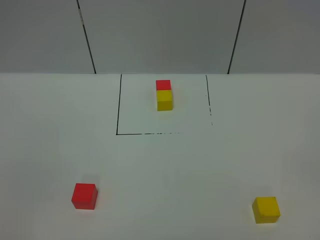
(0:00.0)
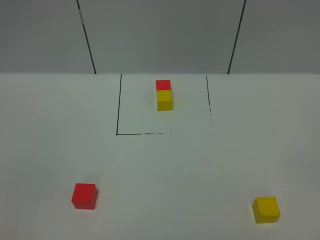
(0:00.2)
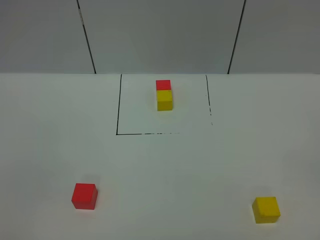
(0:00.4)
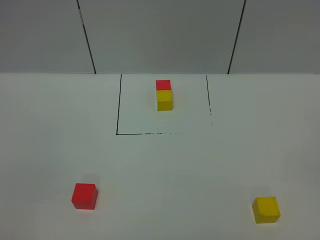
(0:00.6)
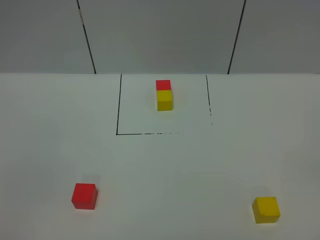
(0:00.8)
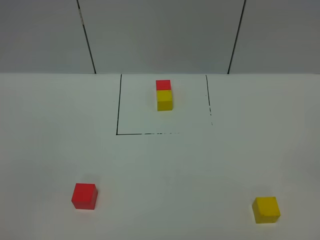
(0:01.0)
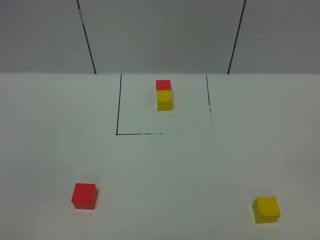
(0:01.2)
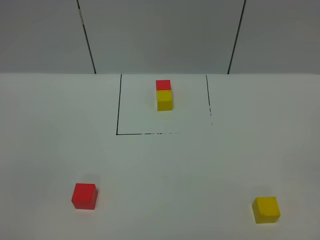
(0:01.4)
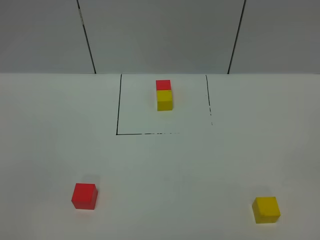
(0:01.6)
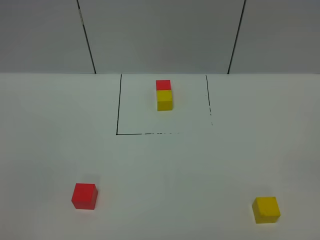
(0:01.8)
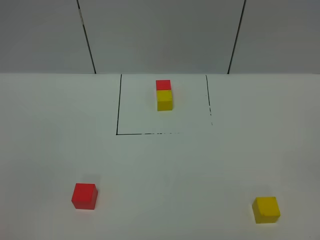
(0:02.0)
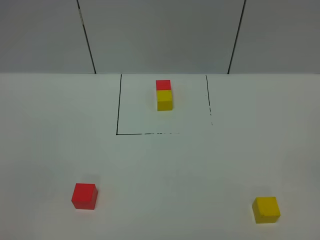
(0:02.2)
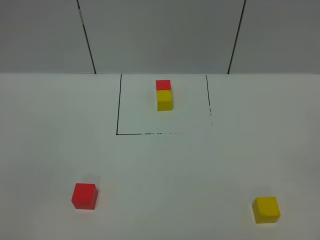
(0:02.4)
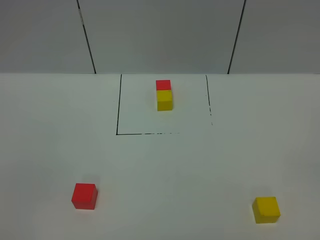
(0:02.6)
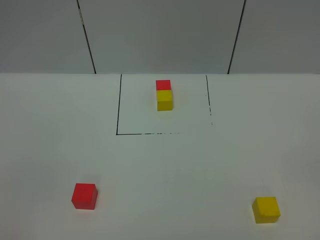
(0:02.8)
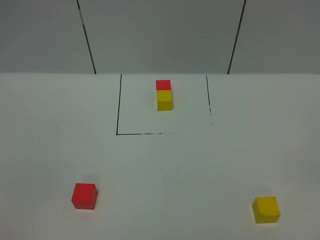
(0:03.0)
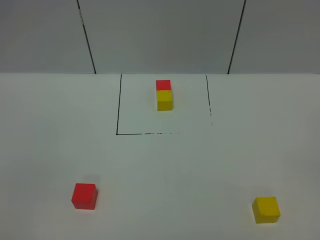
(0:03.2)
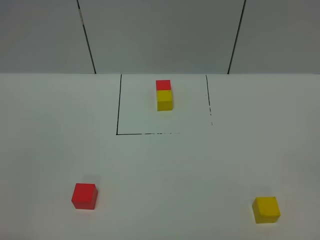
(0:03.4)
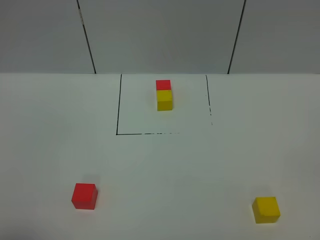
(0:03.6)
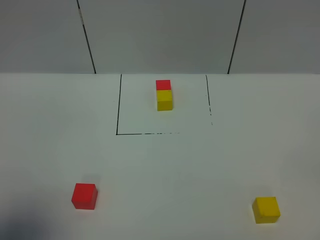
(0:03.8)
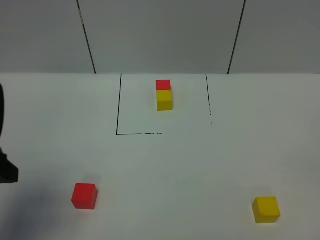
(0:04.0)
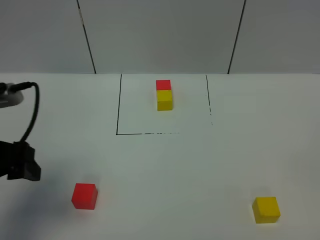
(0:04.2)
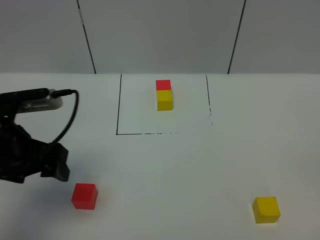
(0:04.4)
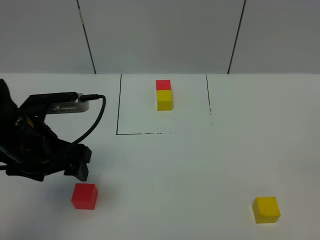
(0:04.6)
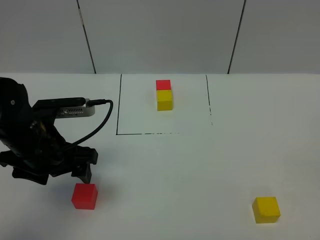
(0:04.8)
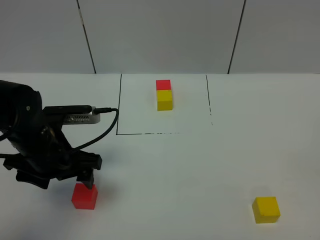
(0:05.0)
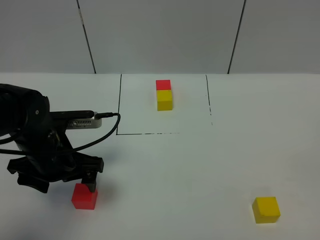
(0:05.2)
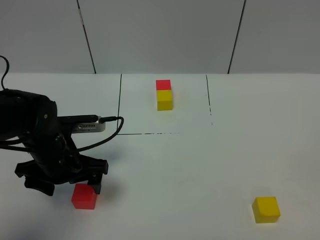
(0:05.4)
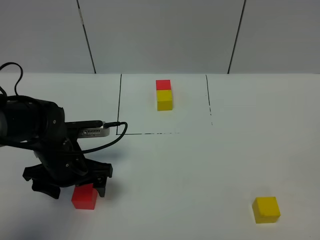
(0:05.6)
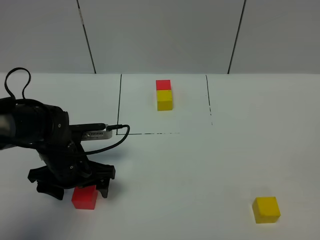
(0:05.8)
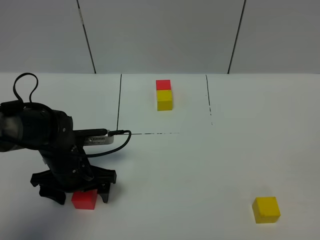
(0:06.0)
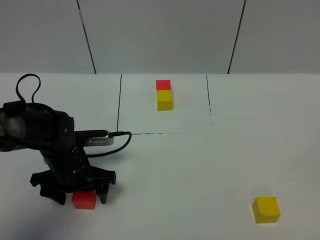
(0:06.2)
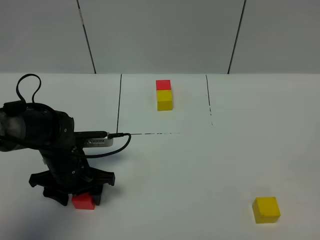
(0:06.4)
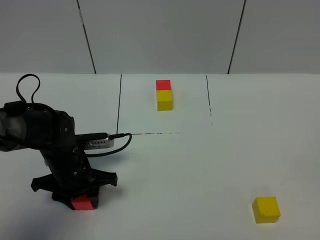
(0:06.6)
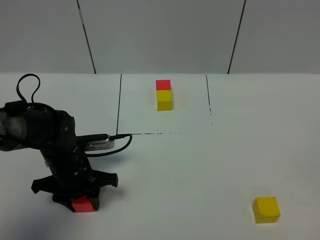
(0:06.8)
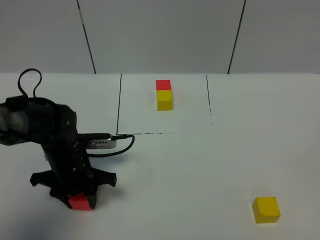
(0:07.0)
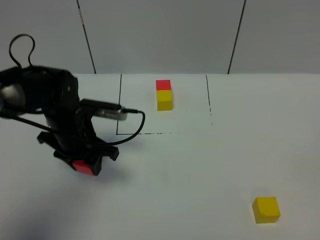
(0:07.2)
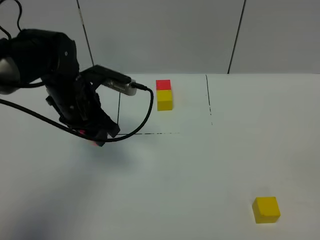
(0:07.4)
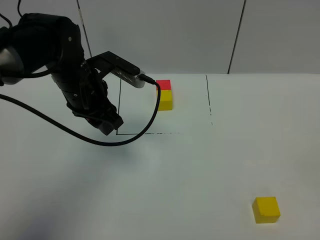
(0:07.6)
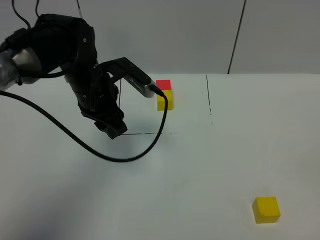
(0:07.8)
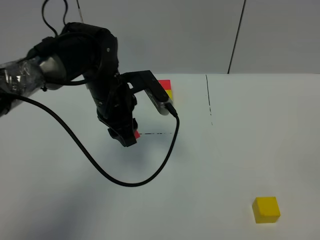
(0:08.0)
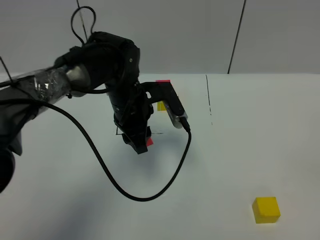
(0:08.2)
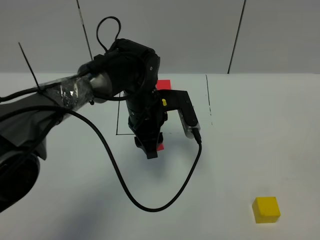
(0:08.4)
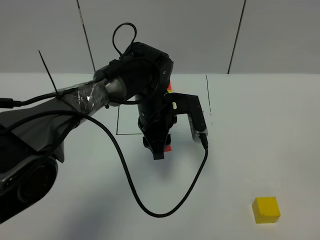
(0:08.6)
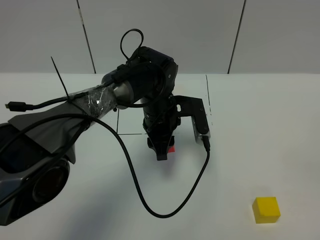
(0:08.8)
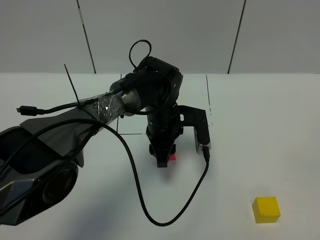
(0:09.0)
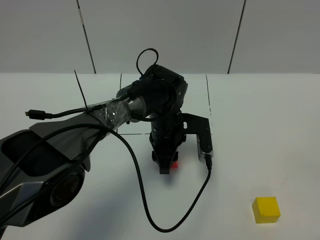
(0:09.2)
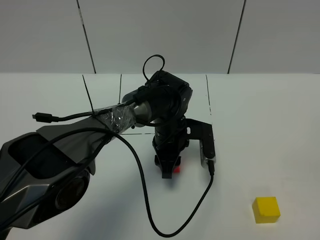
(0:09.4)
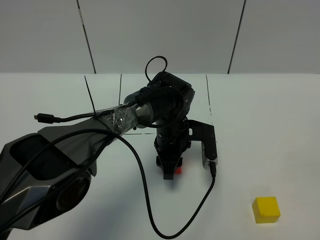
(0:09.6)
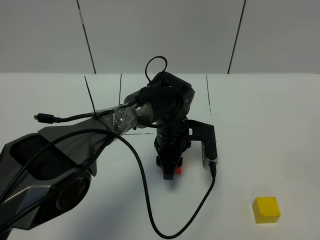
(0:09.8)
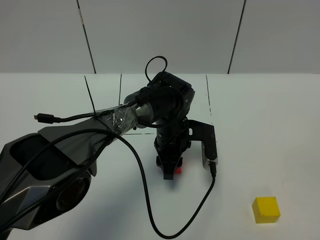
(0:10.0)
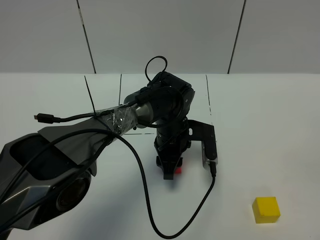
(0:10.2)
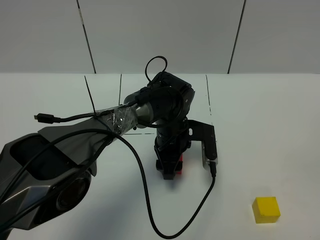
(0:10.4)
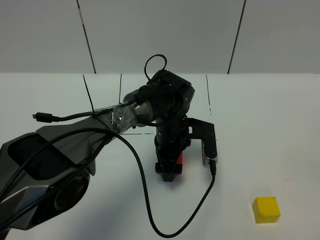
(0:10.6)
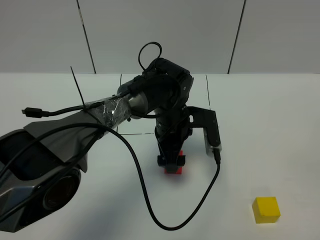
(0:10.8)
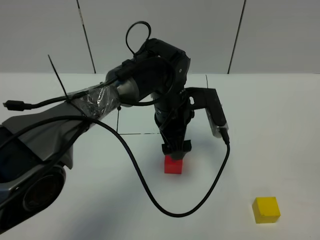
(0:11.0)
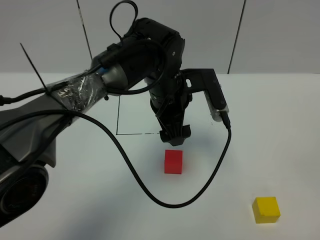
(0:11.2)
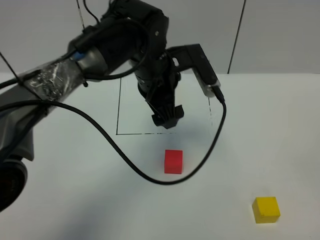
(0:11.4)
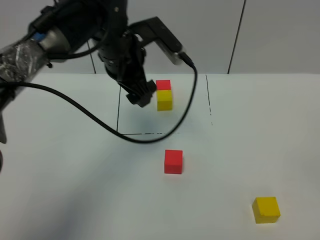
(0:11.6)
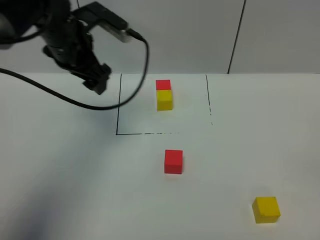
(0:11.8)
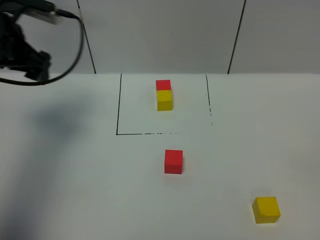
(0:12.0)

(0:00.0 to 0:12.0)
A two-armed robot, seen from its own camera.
Task of the whole recording: According to the building block template in front, assemble the scattered blocks together.
Step, 0:04.0 - 0:11.2: Put the red cube in the center of the table.
0:00.0 - 0:03.0: Both grippers stay about where they are.
0:03.0 - 0:04.4: The left gripper shifts about 25 cm forward.
0:04.4 - 0:06.0: The left gripper travels downward by some 15 cm.
0:06.0 - 0:07.6: The left gripper shifts approximately 15 cm upward and forward, and closes.
0:07.6 - 0:09.0: The left gripper is displaced to the right and downward by approximately 20 cm.
0:09.0 - 0:10.4: The left gripper opens.
0:10.4 - 0:12.0: The left gripper travels to the left and upward by approximately 35 cm, and opens.

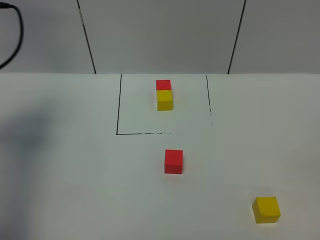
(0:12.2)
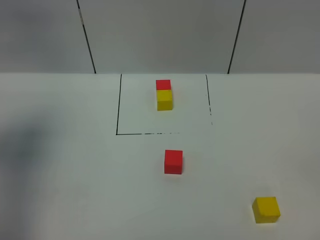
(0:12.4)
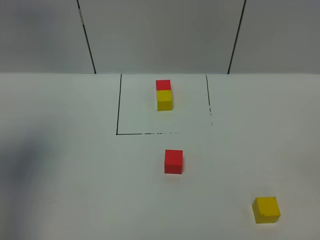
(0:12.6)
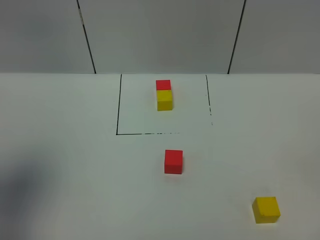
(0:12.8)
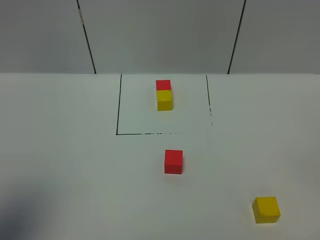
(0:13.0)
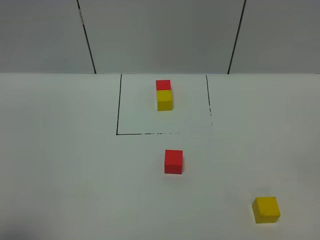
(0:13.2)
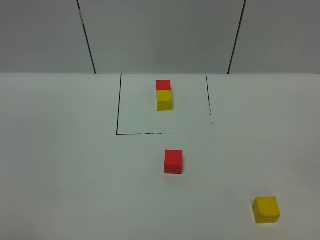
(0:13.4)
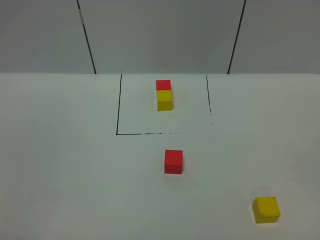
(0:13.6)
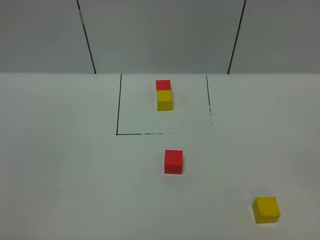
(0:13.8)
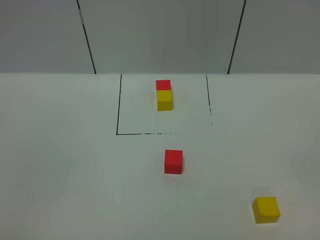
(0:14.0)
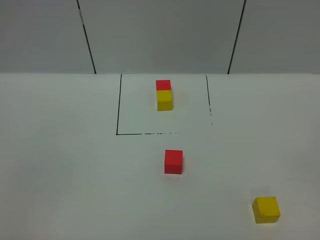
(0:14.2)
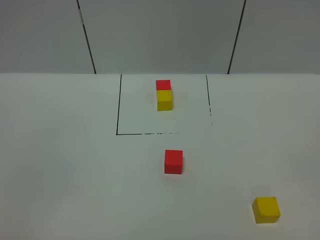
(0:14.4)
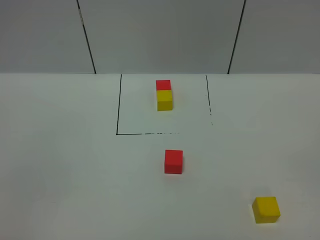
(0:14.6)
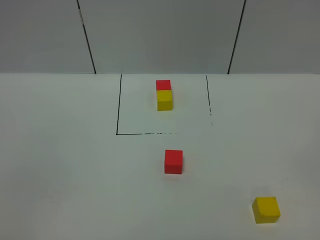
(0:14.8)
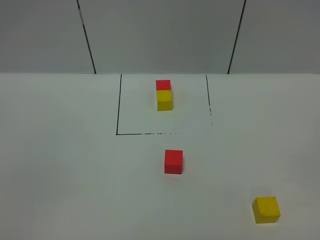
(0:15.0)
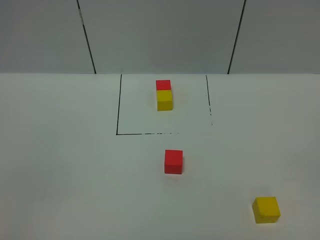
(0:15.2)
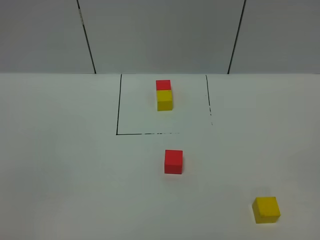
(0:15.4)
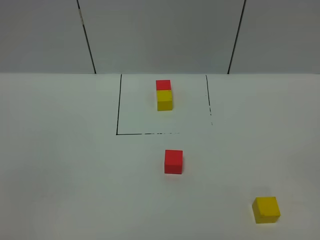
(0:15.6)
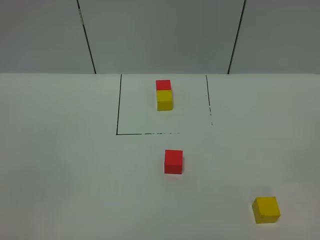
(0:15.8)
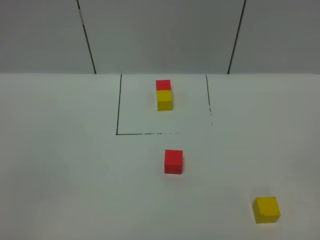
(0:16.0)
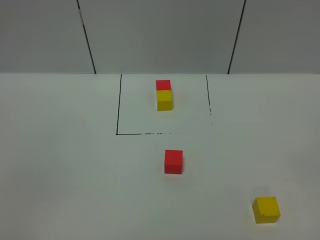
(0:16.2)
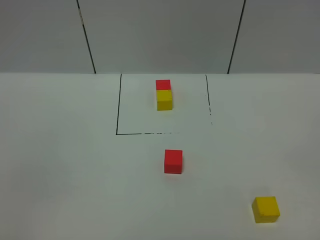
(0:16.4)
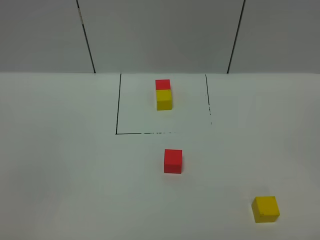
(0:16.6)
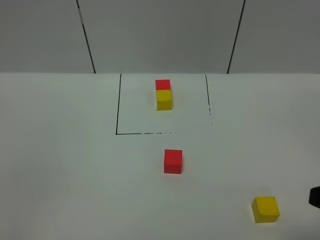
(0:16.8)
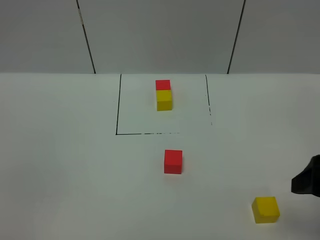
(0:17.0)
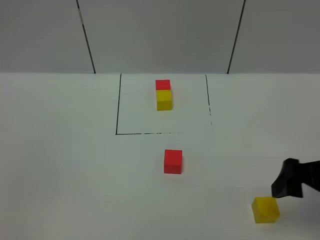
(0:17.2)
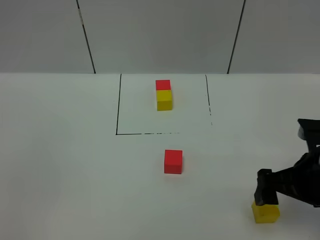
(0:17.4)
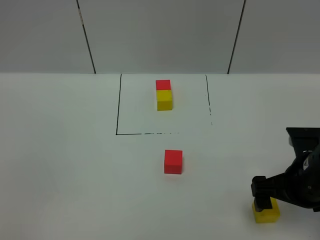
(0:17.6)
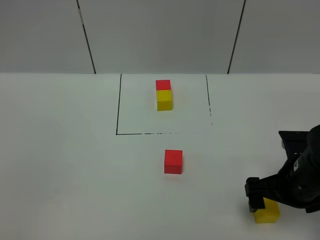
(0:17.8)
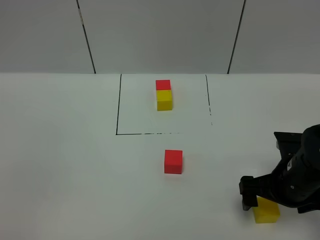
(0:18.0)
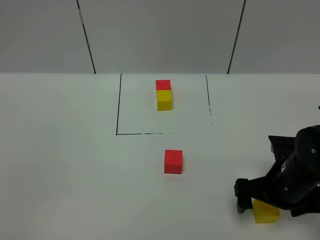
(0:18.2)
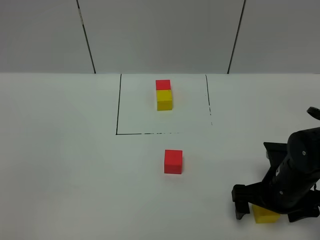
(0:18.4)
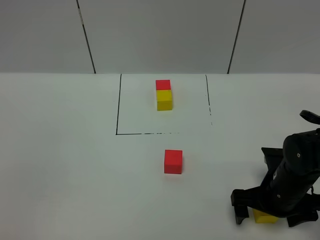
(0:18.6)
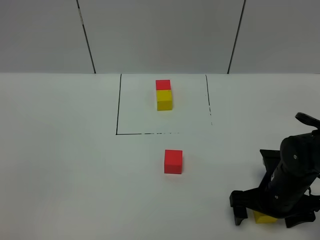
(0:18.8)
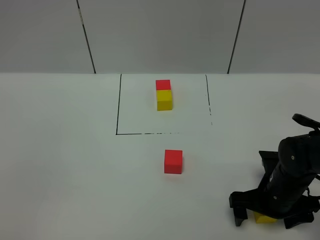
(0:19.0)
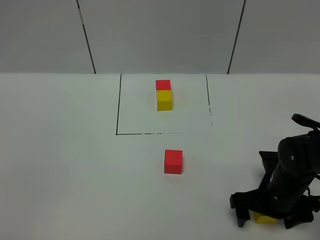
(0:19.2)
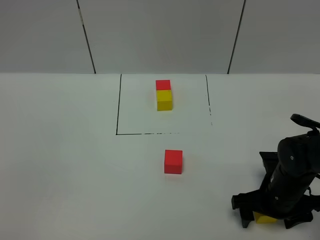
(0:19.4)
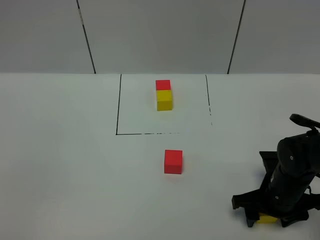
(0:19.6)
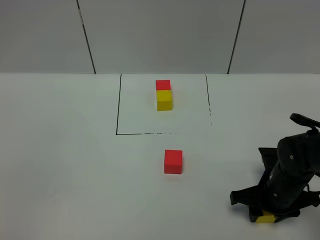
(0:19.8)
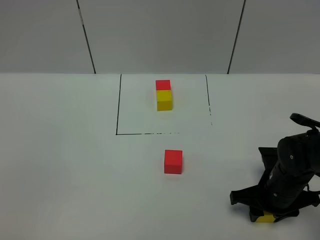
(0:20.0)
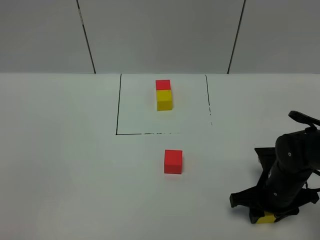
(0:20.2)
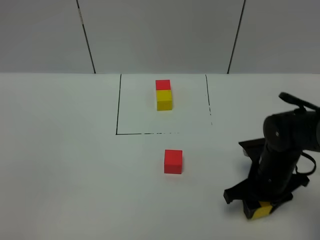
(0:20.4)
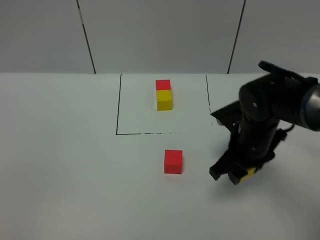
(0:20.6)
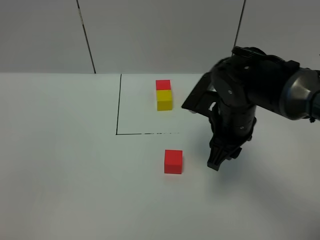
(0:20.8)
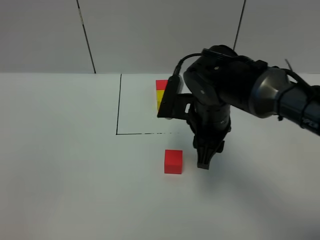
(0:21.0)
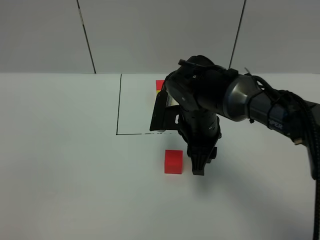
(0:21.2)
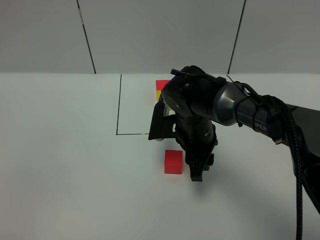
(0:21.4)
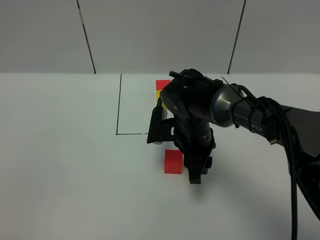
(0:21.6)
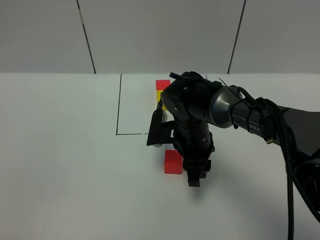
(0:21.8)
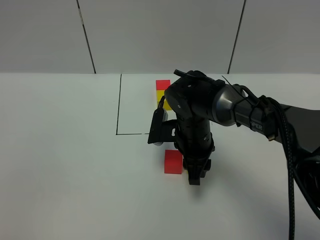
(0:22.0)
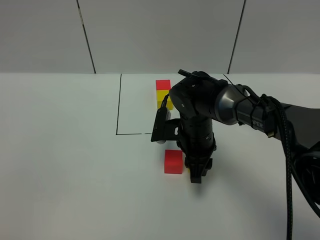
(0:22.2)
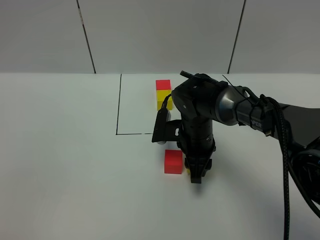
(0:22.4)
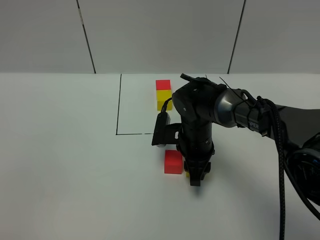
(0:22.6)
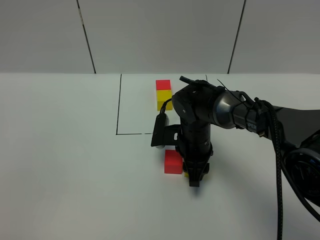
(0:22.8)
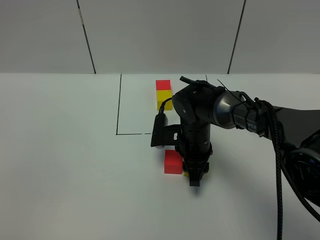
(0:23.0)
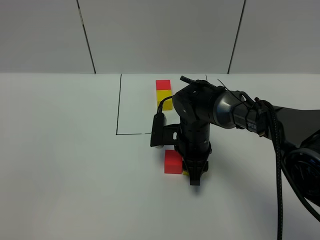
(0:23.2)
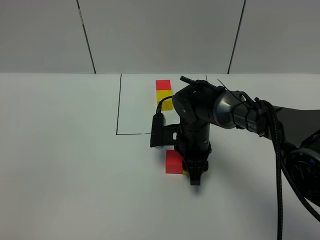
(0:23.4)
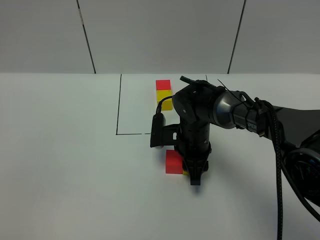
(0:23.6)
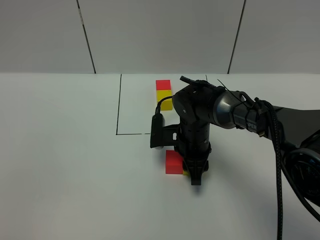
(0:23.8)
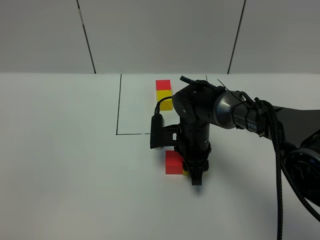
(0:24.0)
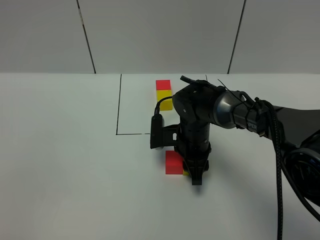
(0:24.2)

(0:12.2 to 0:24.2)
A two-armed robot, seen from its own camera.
Task of the whole recording: According to the building block template in front, assemble the scattered blocks together.
0:12.2 - 0:13.8: The left gripper travels backward by approximately 35 cm.
0:16.6 - 0:18.2: The right gripper heads forward and downward, covering some 25 cm.
0:18.2 - 0:19.8: The right gripper shifts some 5 cm downward, and closes up.
0:19.8 - 0:21.2: The right gripper travels to the left, upward and forward by some 20 cm.
0:21.2 - 0:22.6: The right gripper travels downward by some 5 cm.
0:22.6 - 0:24.2: The grippers move only a little.
